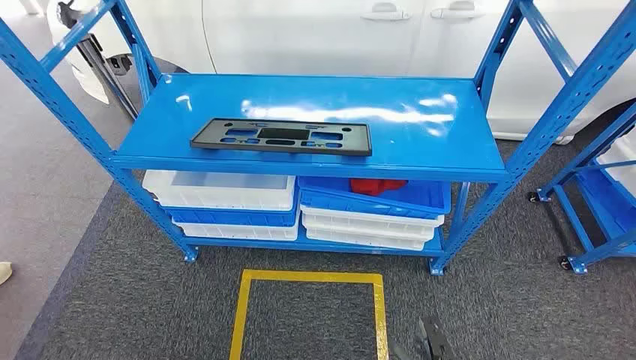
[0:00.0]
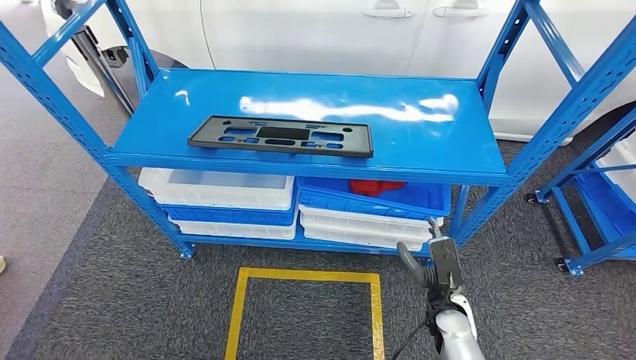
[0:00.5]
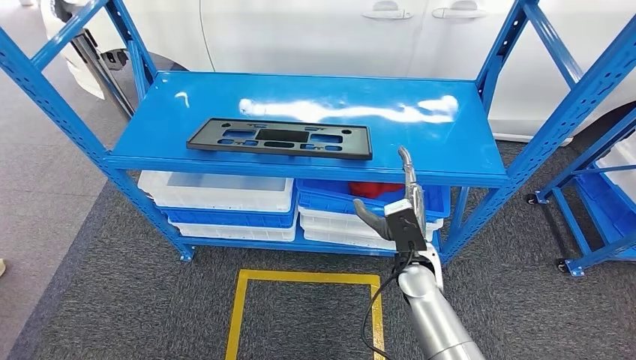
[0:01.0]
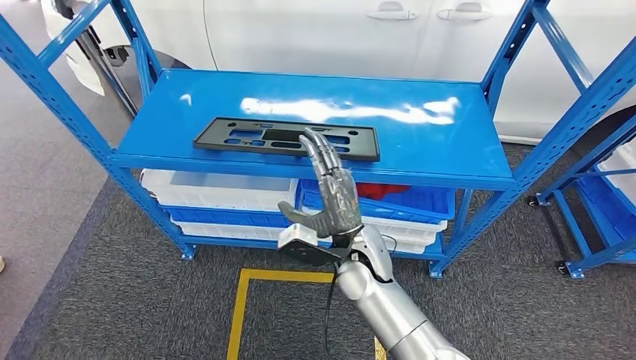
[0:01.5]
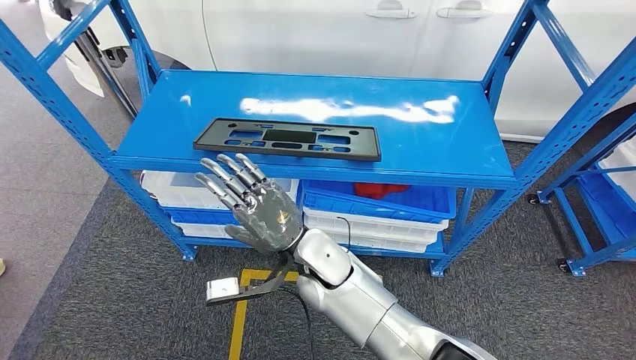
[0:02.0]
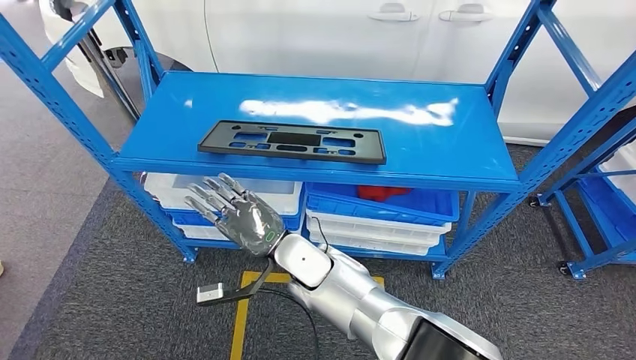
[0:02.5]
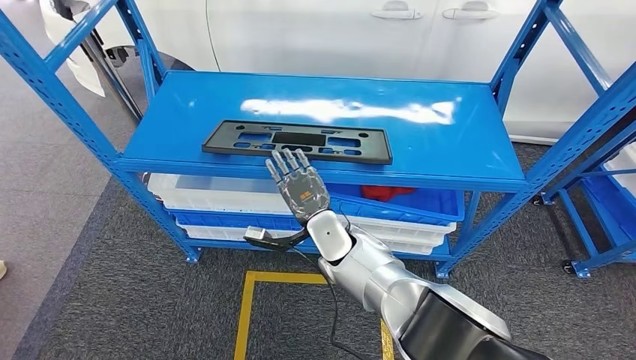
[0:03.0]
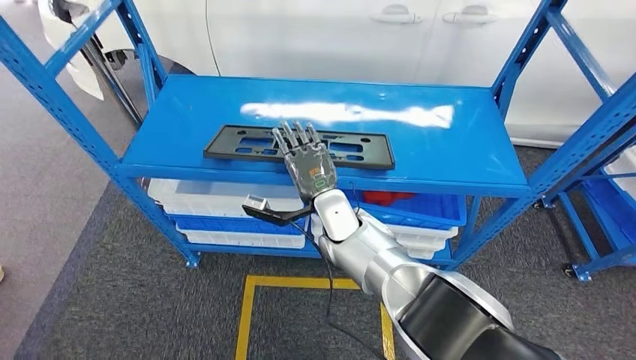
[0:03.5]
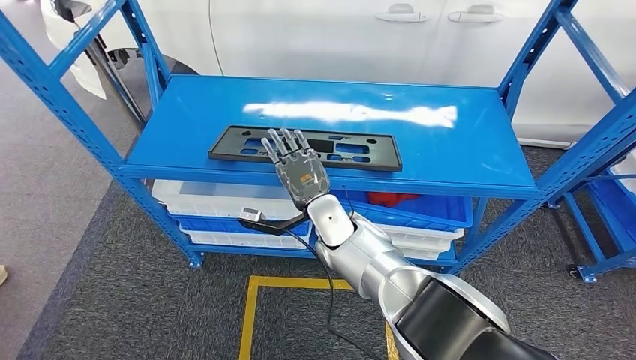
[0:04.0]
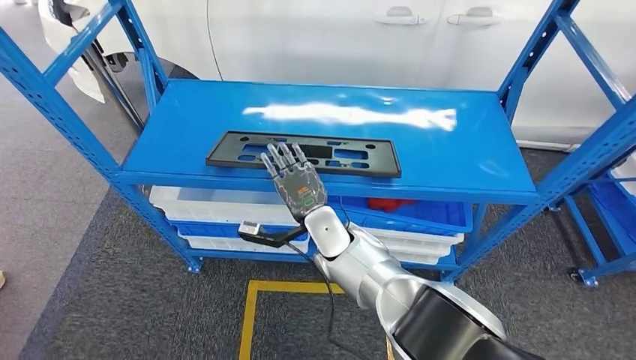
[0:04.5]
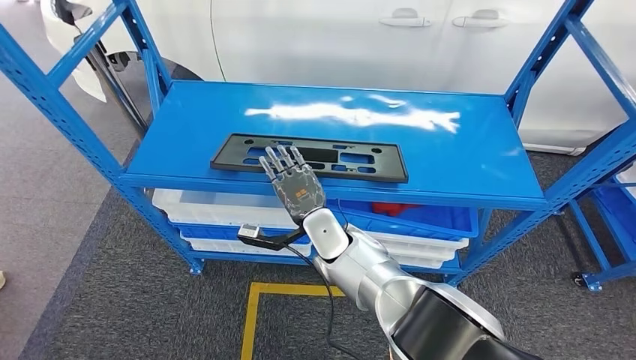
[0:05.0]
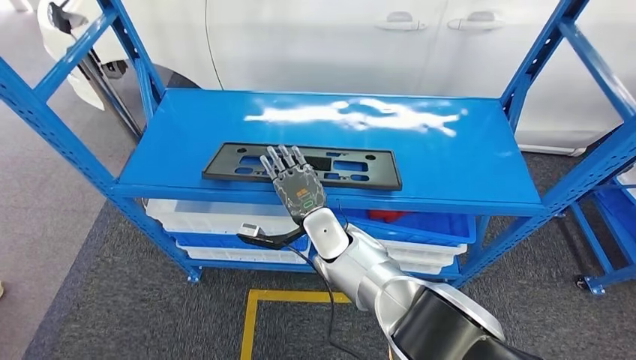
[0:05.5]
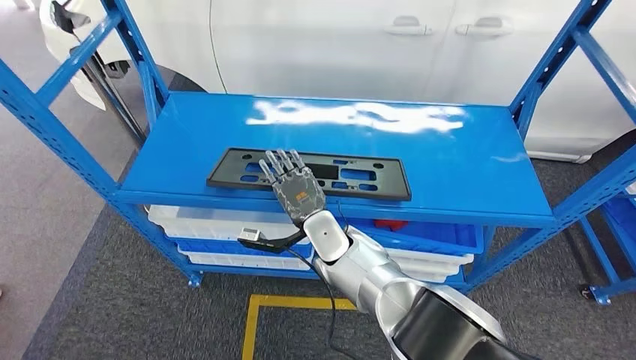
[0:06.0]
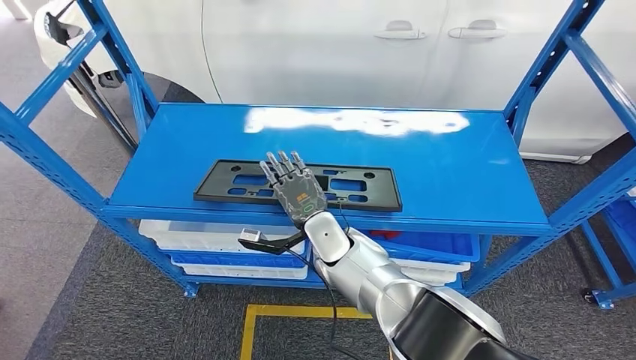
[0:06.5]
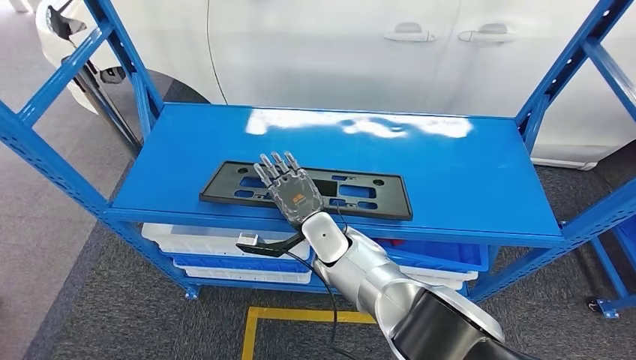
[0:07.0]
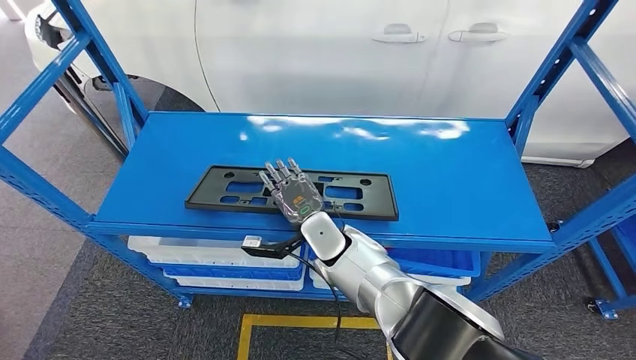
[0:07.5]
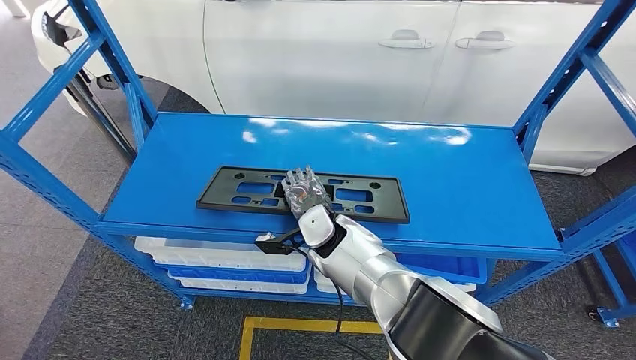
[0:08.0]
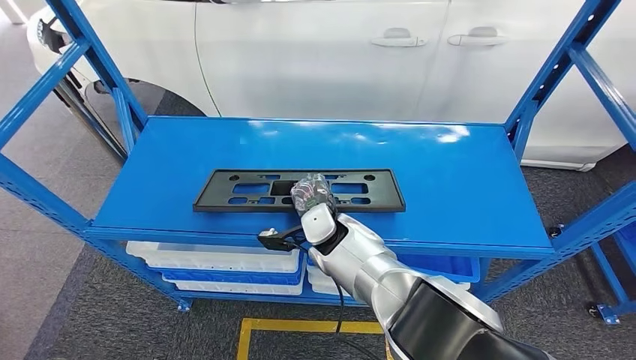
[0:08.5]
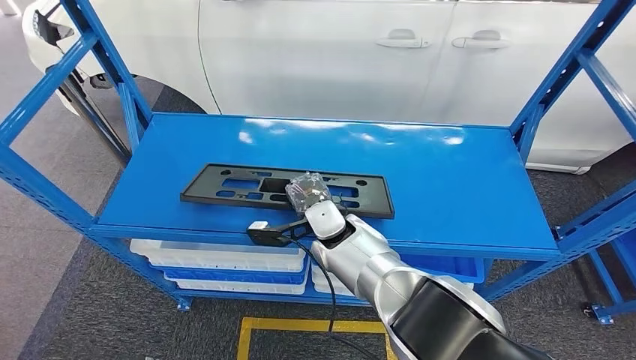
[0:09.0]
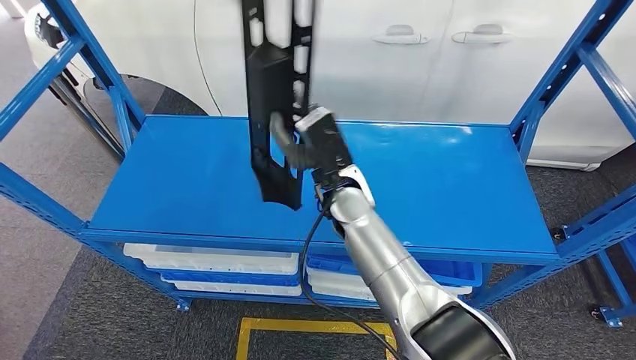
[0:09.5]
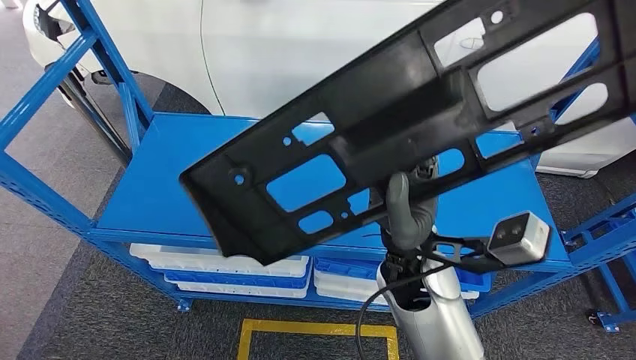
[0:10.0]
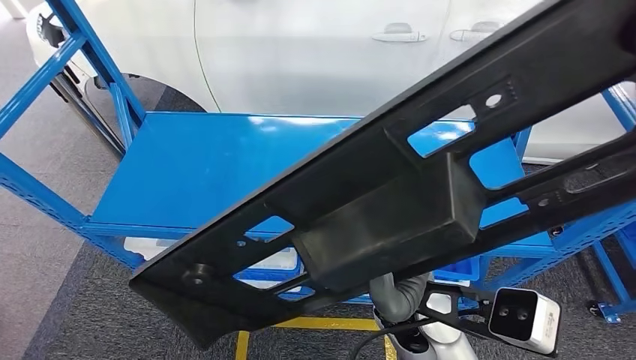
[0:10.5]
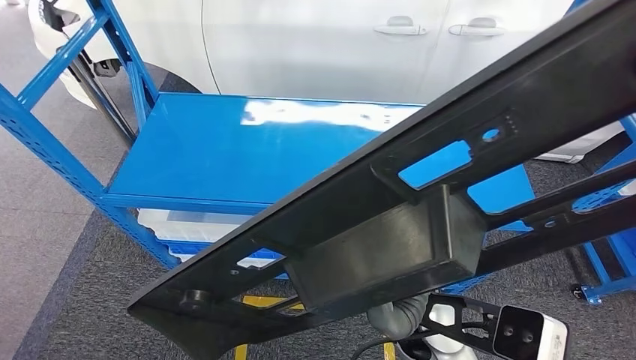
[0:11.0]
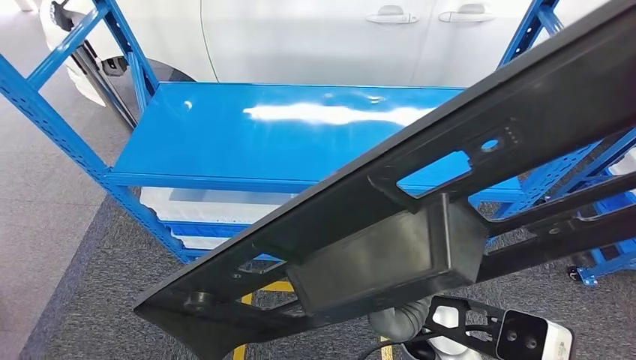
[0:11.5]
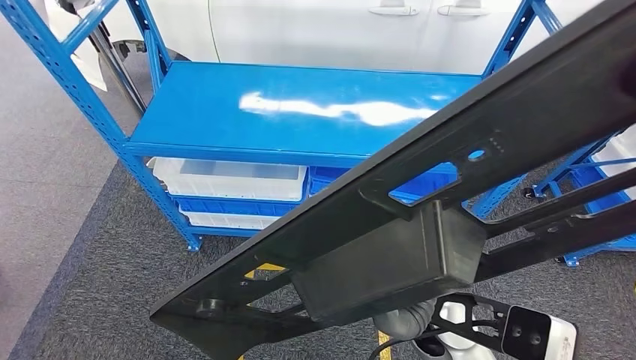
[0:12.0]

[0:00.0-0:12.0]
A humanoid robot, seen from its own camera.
Step, 0:00.0 to 0:09.5: Pick up the large material from the shelf.

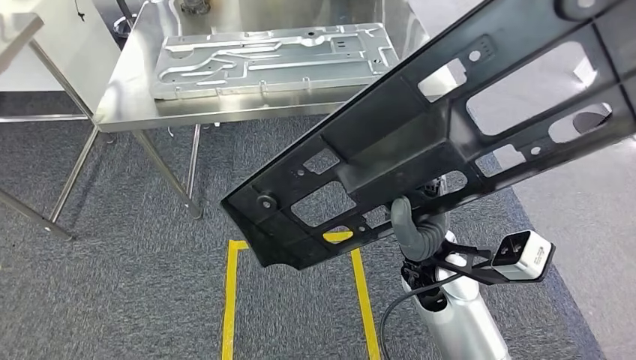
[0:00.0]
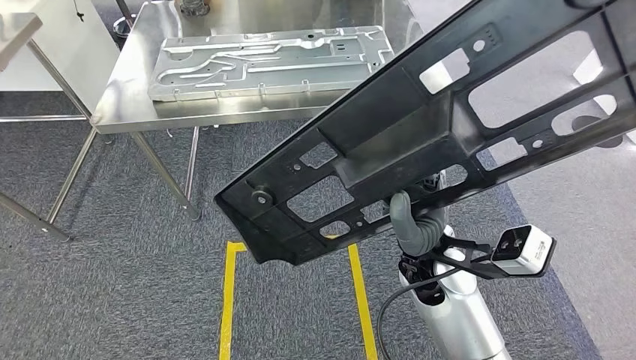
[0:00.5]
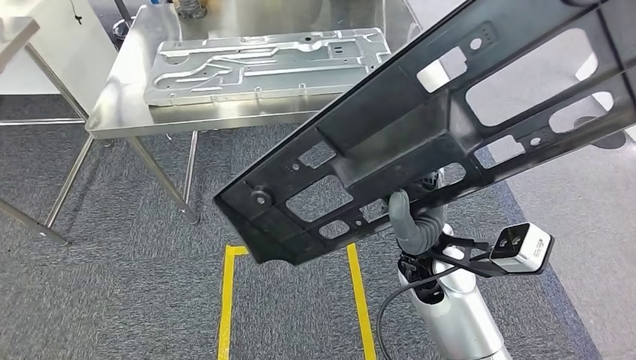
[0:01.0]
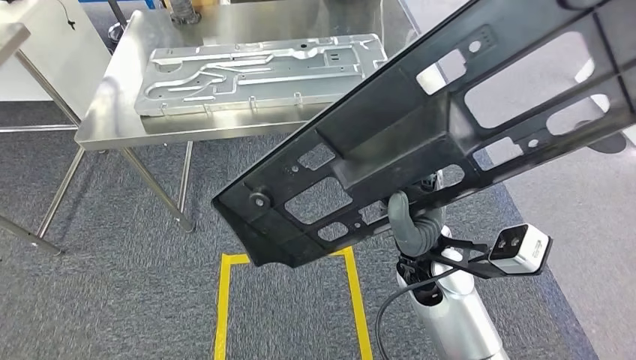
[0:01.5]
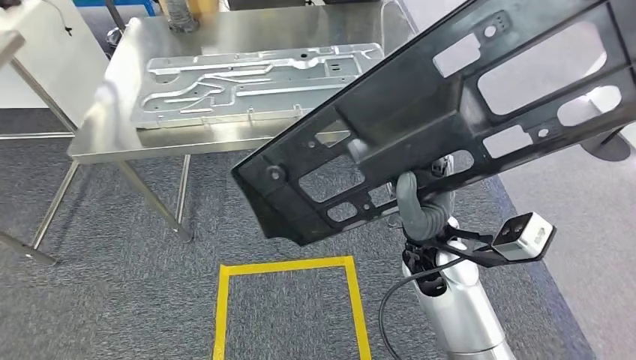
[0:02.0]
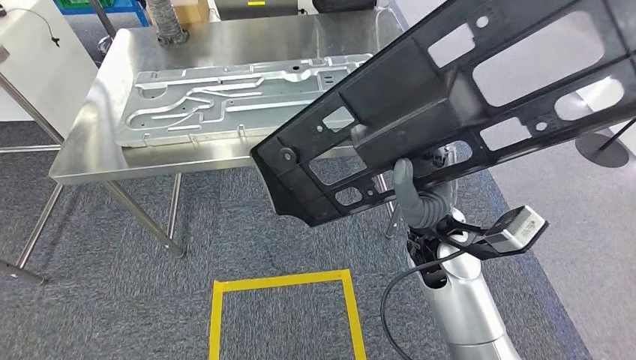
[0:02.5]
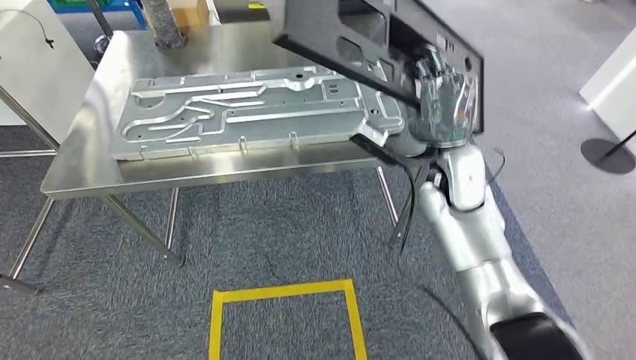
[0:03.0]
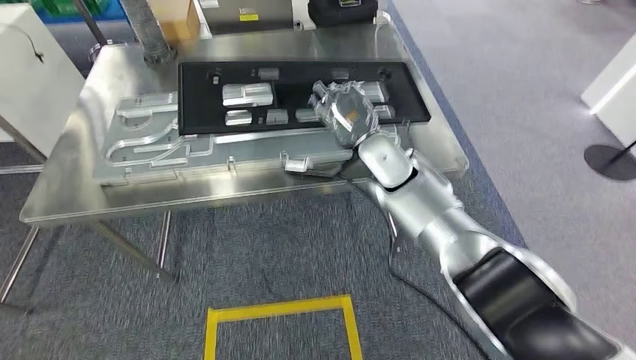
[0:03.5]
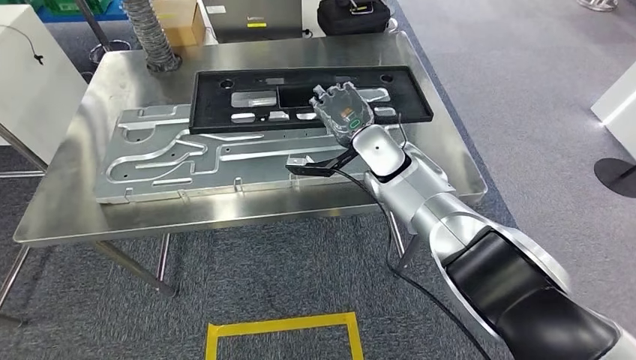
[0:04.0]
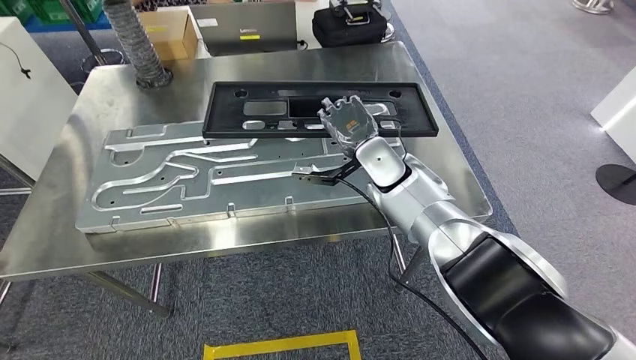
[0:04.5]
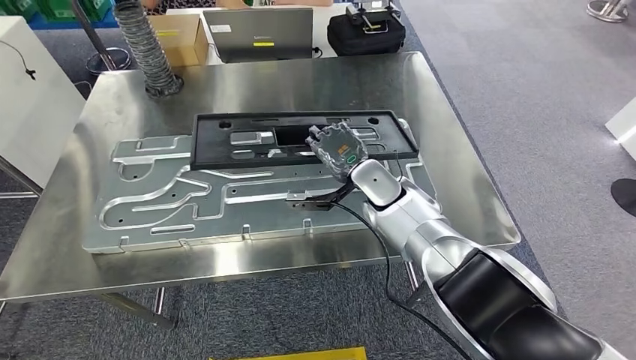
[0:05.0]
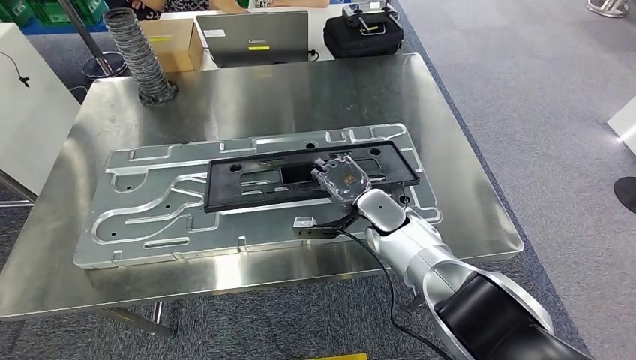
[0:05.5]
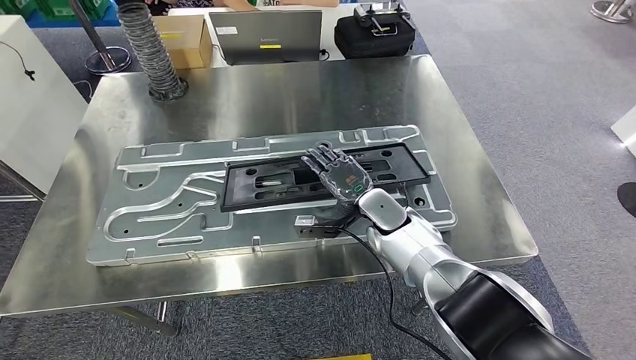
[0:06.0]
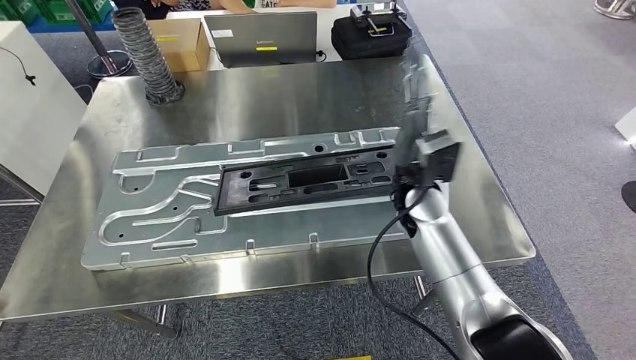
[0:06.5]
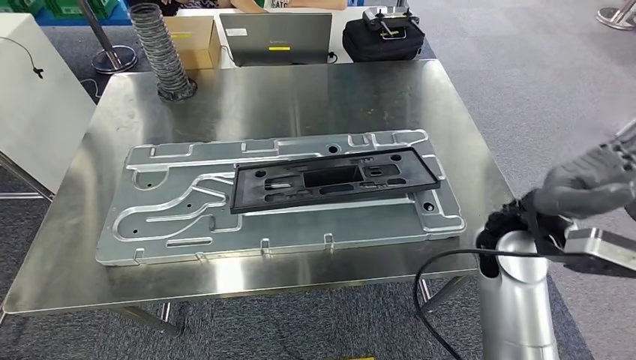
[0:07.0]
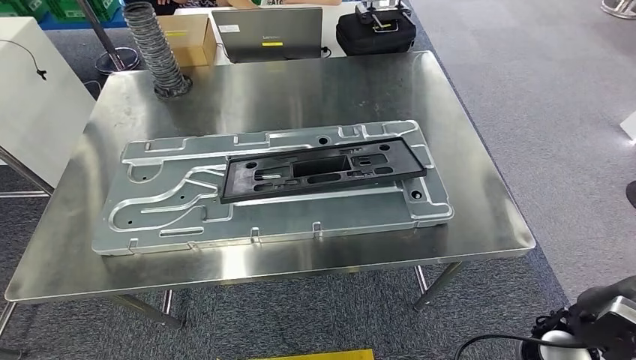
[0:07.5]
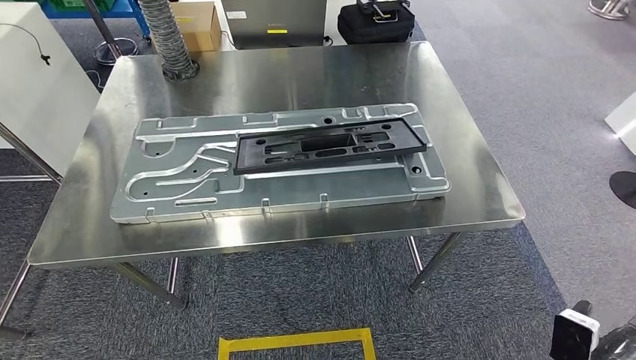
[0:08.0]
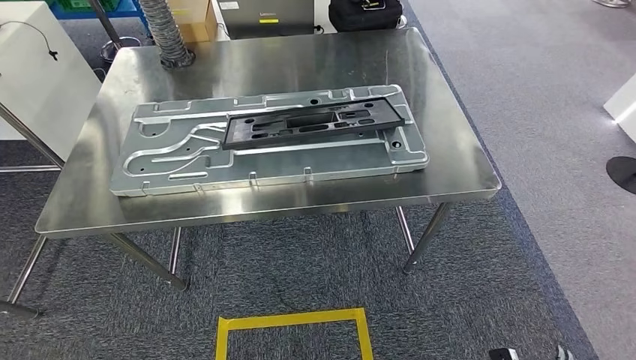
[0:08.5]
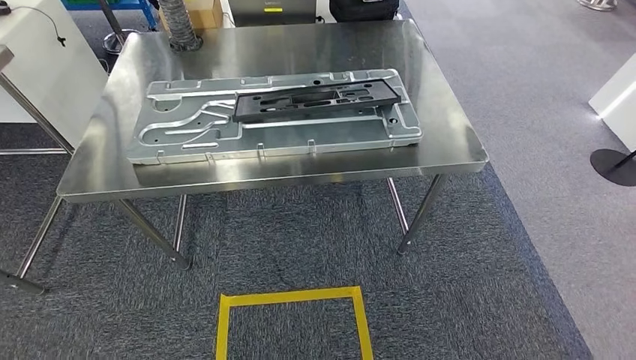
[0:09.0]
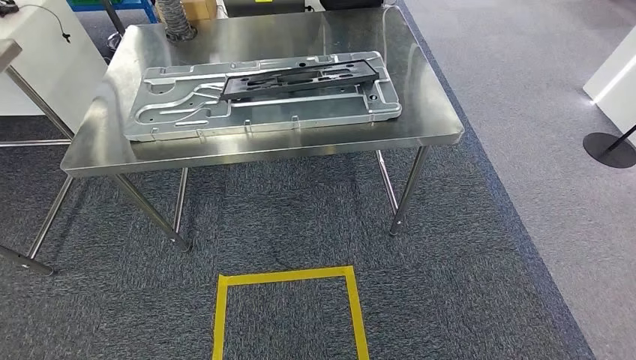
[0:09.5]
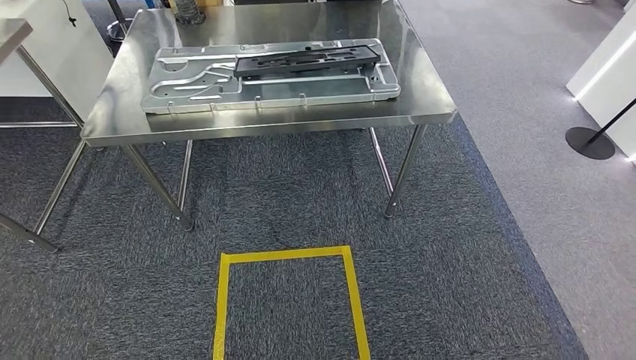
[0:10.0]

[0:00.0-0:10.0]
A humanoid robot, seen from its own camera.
Step, 0:00.0 to 0:03.5: Move the large material to the workbench.
Step, 0:04.0 to 0:07.0: Insert the large material into the corresponding slot on the workbench.
Step, 0:07.5 to 0:10.0: Return to the initial position at the shelf.
